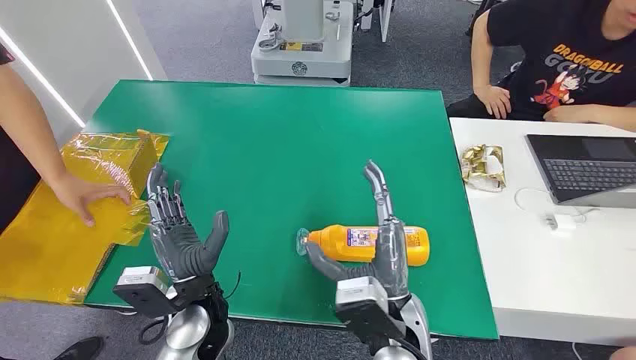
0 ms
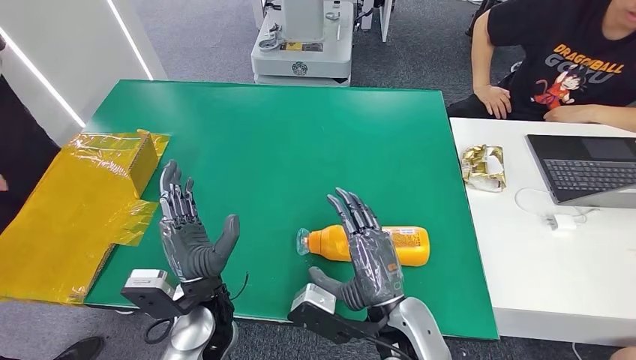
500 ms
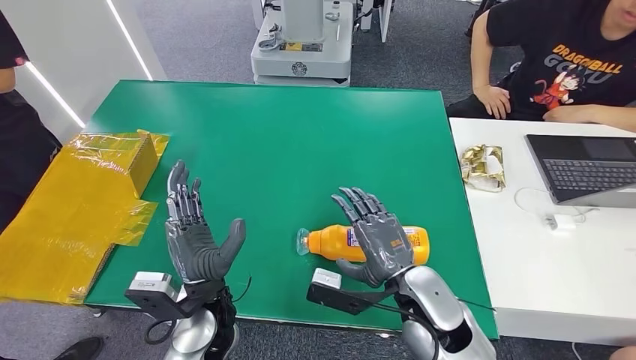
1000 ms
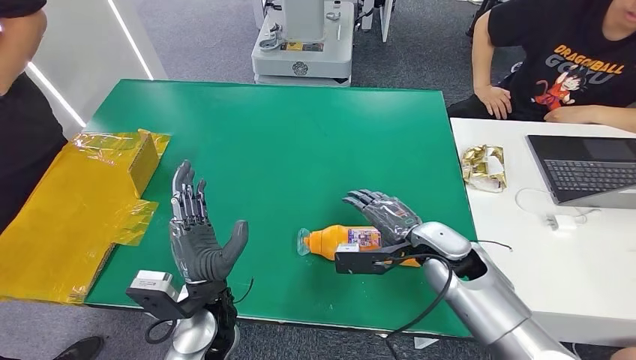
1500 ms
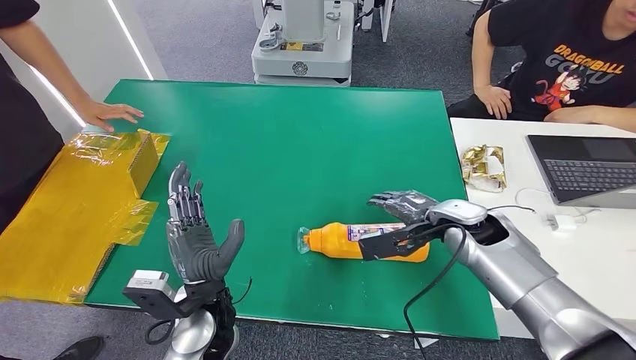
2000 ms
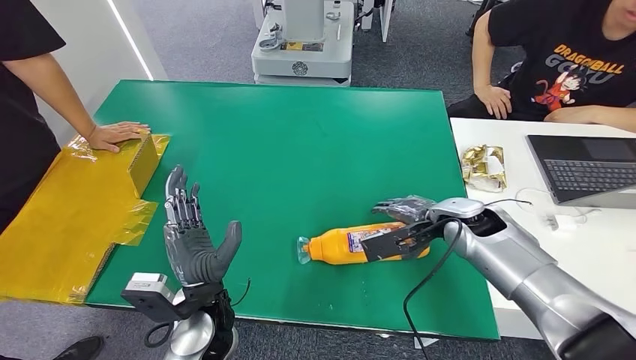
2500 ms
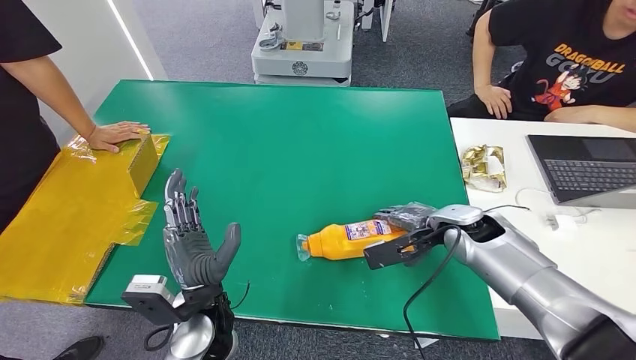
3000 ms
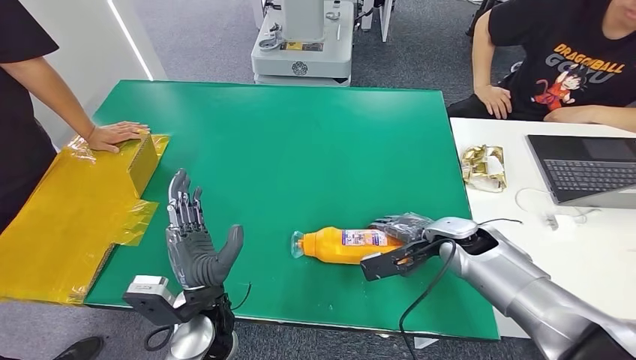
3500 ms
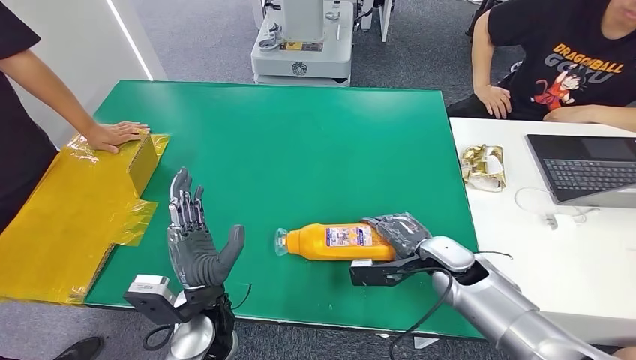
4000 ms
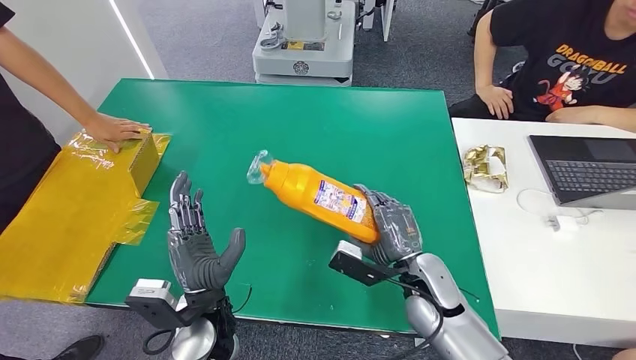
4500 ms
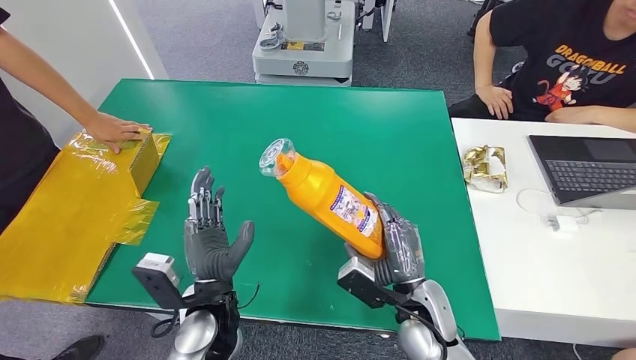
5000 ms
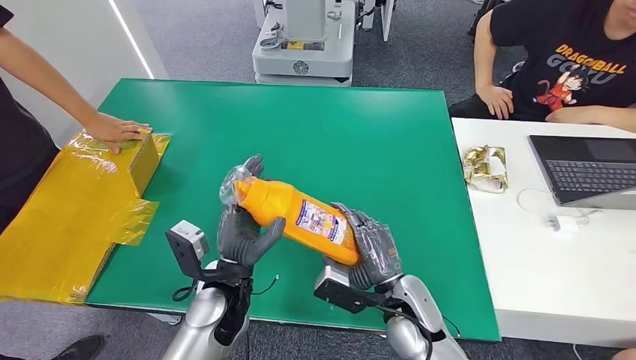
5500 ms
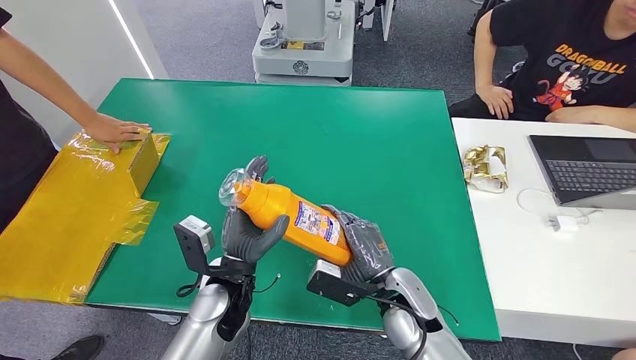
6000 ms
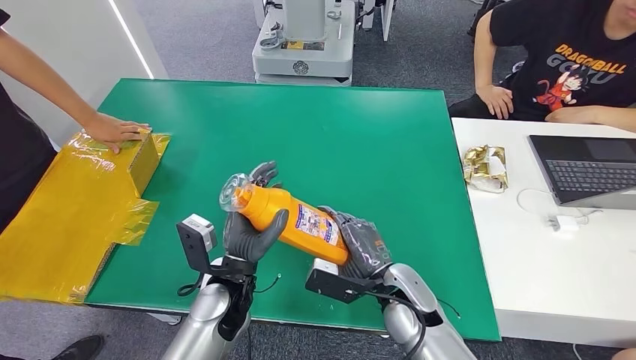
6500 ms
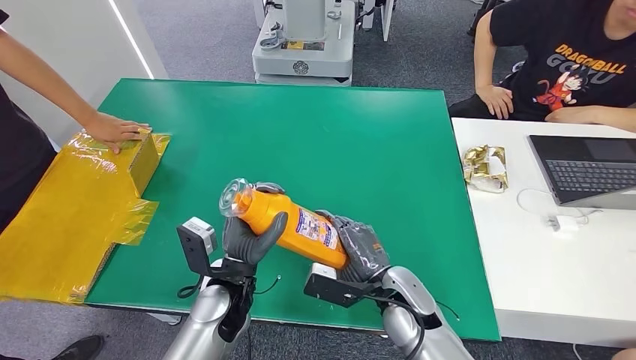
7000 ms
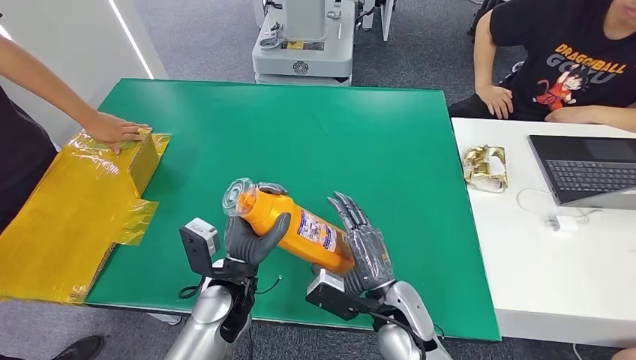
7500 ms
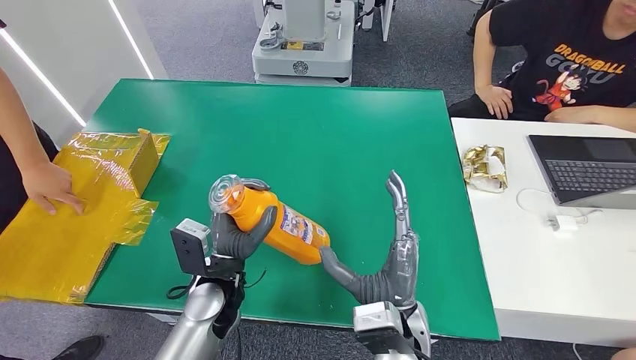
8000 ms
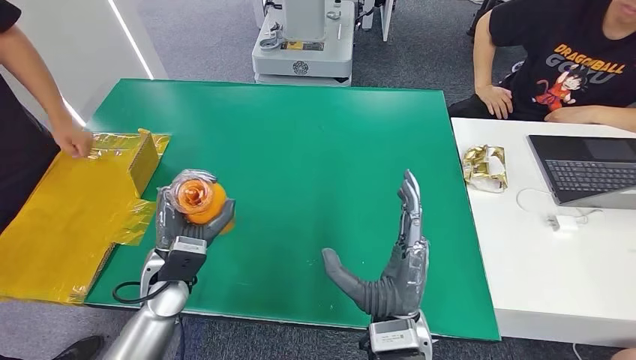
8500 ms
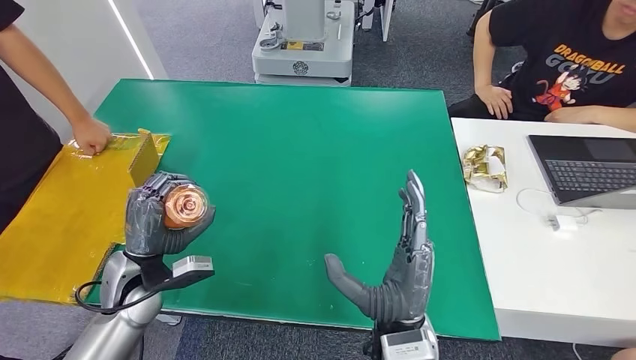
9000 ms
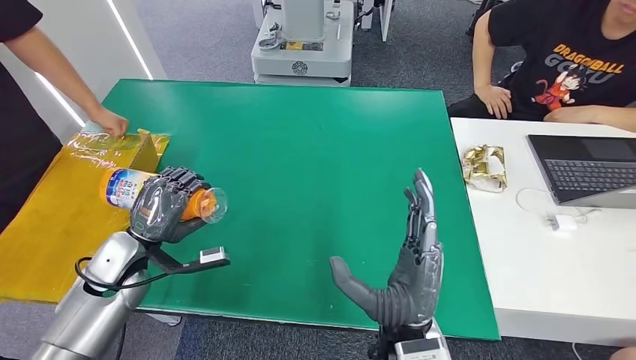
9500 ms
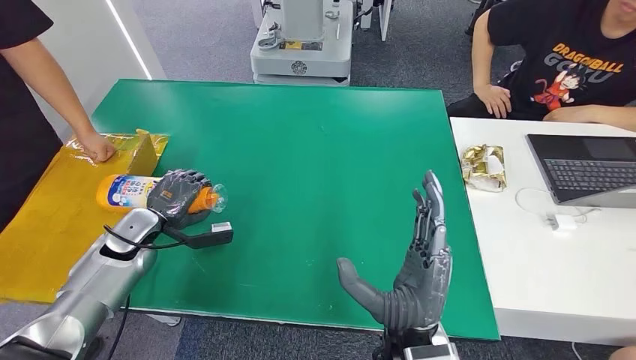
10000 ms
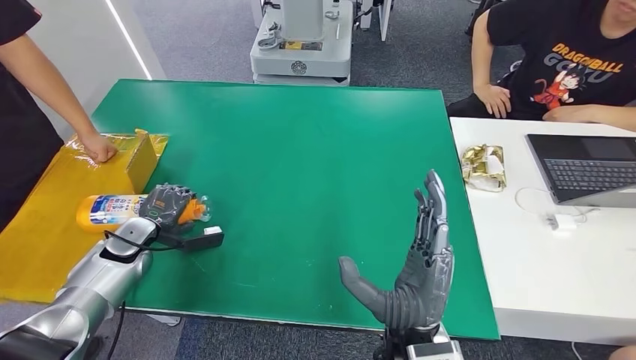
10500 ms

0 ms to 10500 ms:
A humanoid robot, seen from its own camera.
Step, 0 ms to 4500 ms: Pick up the bottle from the table.
2000 ms to 4000 ms: The right hand goes about 10 cm downward.
6500 ms to 8500 ms: The right hand goes about 10 cm backward, upward and to the left. The left hand goes approximately 10 cm to the left.
8500 ms to 10500 ms: The left hand is displaced to the left and forward by roughly 15 cm.

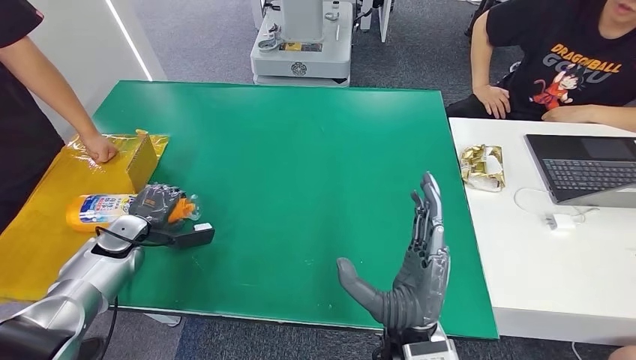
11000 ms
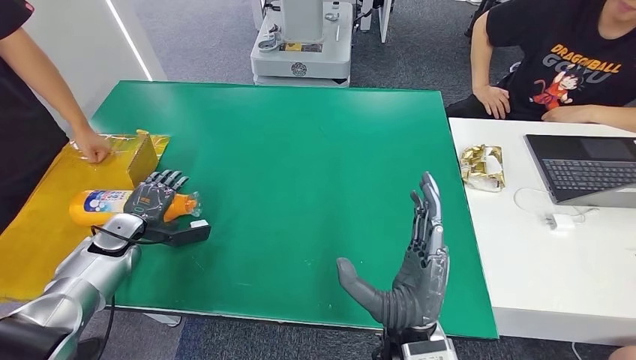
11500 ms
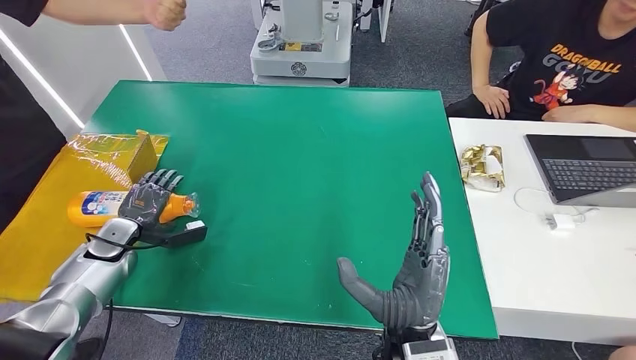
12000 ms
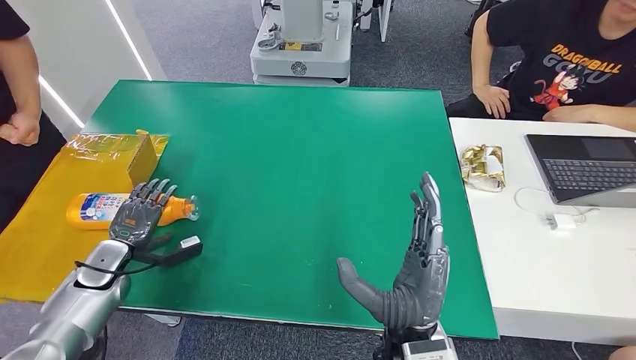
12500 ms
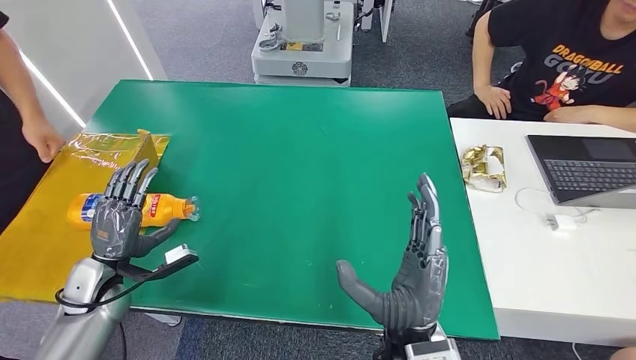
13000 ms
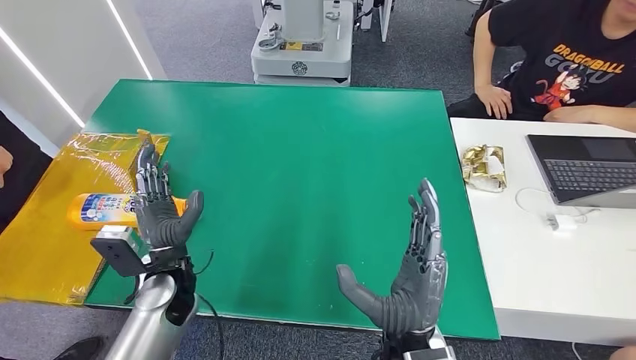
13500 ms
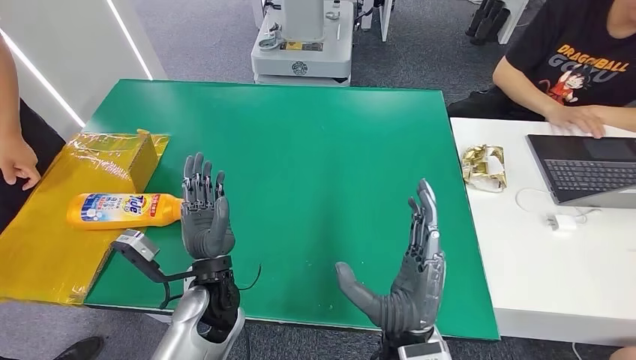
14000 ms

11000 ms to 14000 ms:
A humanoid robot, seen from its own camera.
Step, 11000 ms to 14000 ms: Turn the bottle to the front side.
11000 ms to 12500 ms: The left hand goes about 5 cm backward.
12500 ms to 14000 ms: The left hand is displaced to the right by roughly 25 cm.
